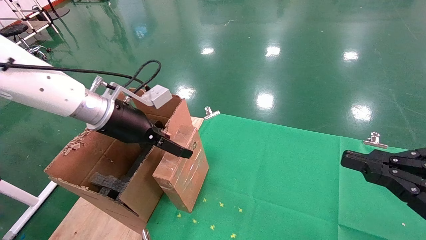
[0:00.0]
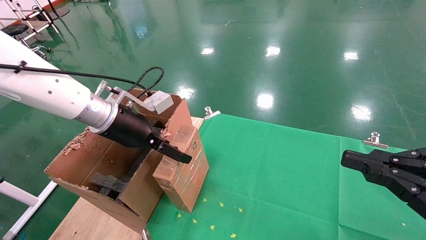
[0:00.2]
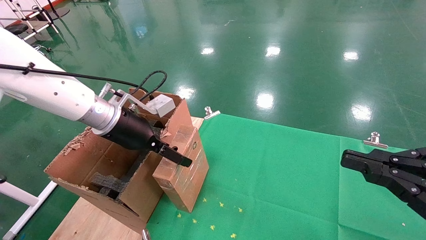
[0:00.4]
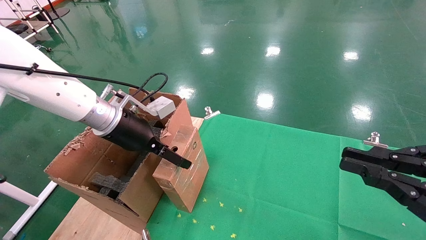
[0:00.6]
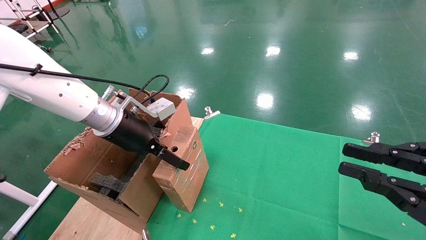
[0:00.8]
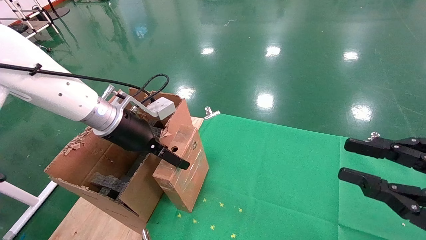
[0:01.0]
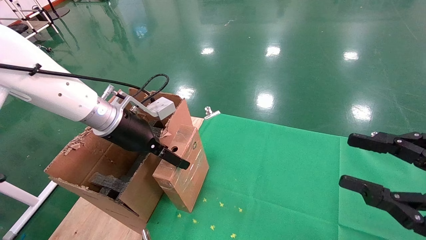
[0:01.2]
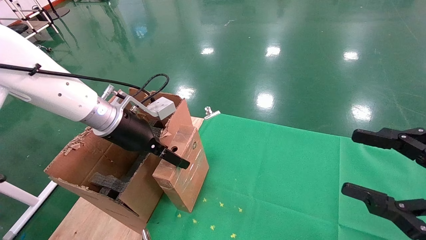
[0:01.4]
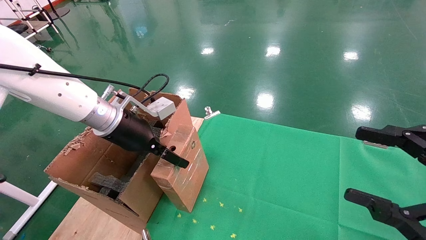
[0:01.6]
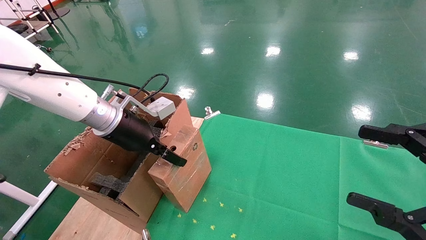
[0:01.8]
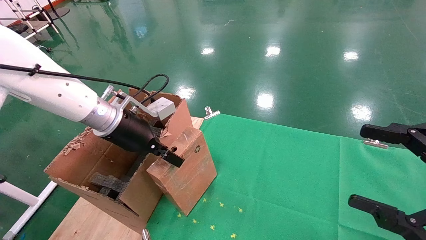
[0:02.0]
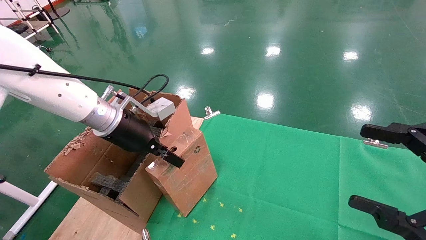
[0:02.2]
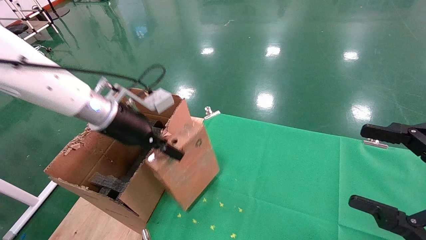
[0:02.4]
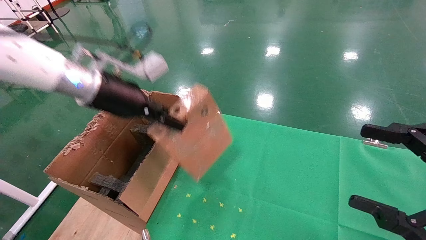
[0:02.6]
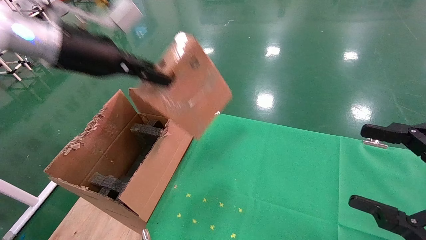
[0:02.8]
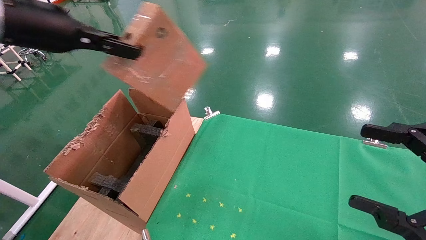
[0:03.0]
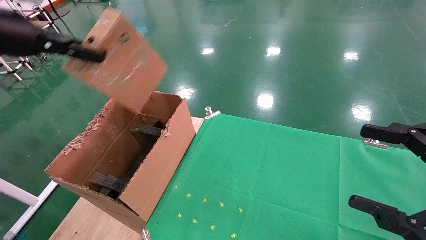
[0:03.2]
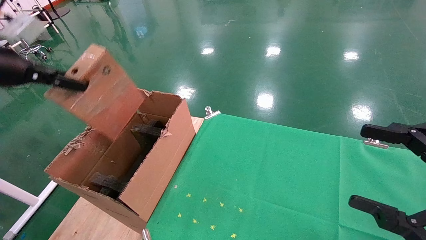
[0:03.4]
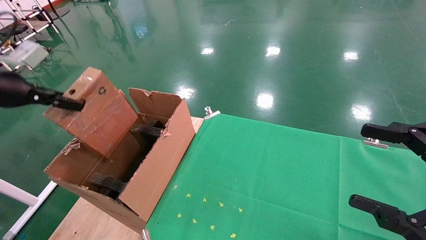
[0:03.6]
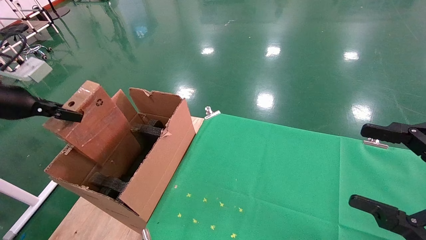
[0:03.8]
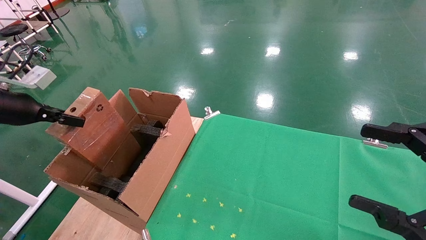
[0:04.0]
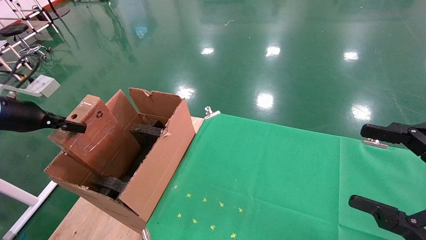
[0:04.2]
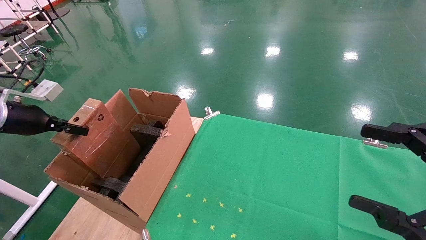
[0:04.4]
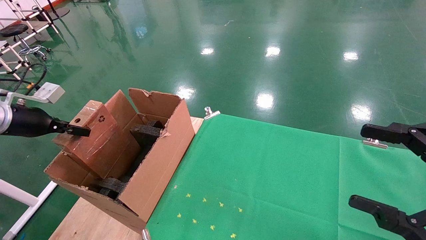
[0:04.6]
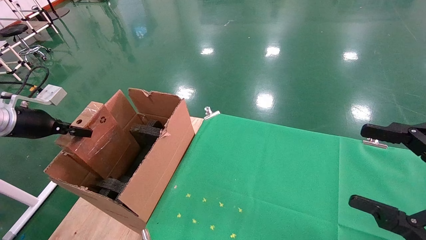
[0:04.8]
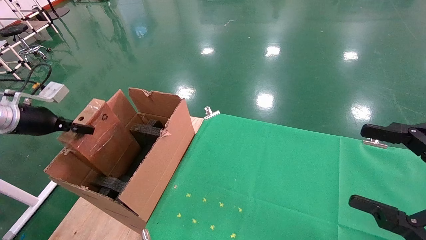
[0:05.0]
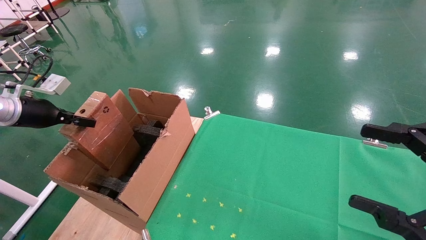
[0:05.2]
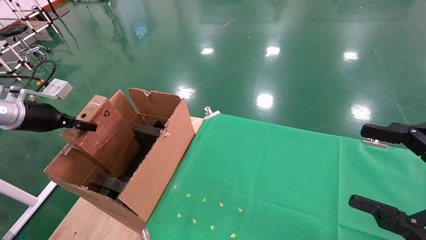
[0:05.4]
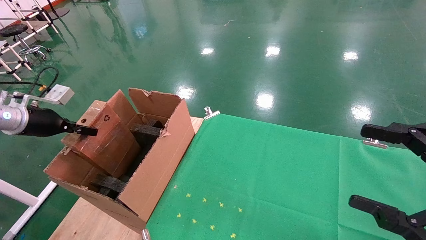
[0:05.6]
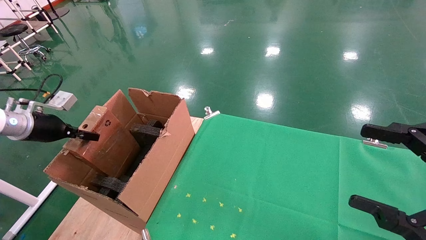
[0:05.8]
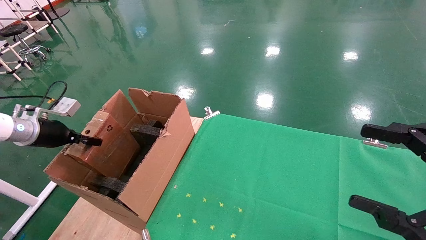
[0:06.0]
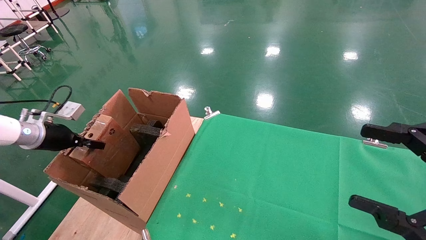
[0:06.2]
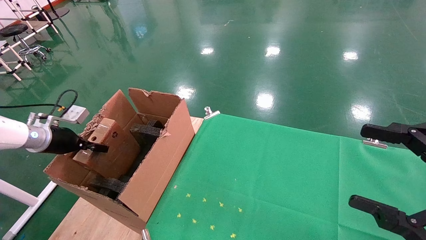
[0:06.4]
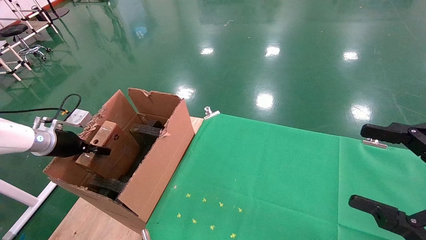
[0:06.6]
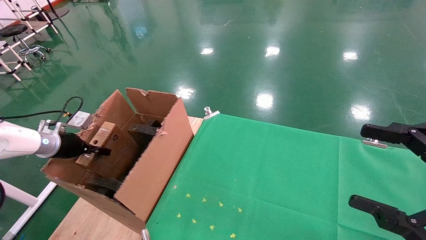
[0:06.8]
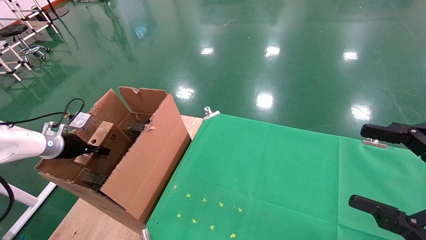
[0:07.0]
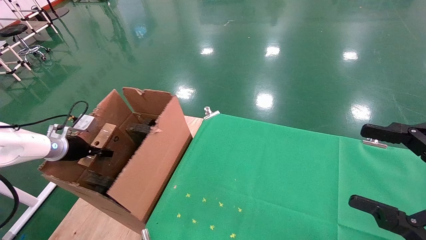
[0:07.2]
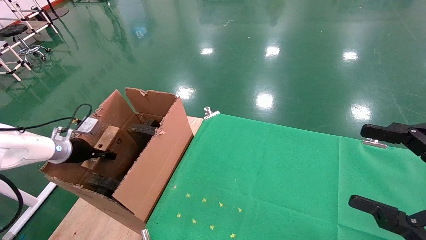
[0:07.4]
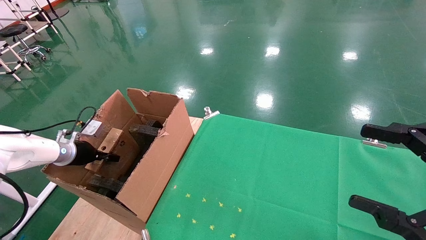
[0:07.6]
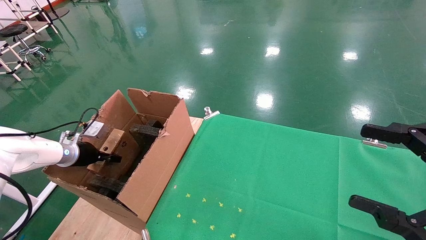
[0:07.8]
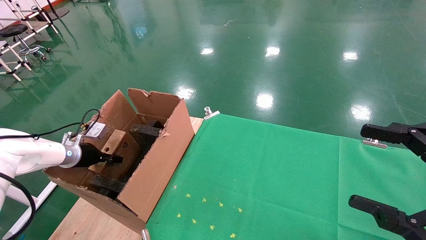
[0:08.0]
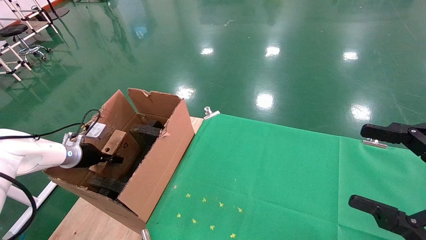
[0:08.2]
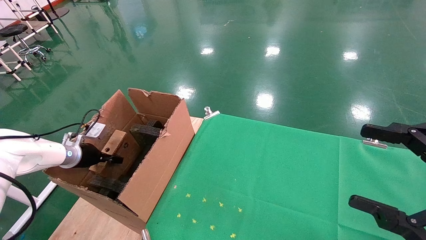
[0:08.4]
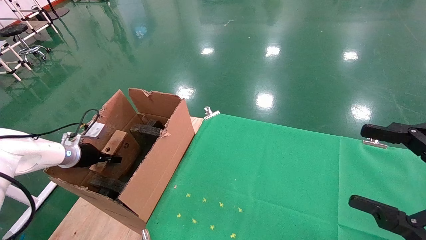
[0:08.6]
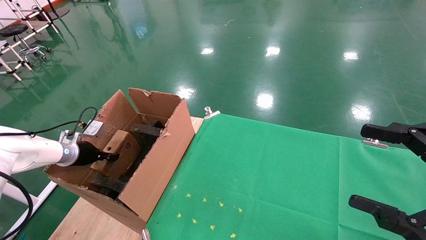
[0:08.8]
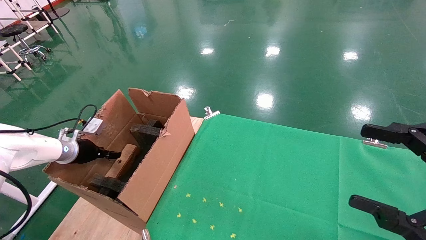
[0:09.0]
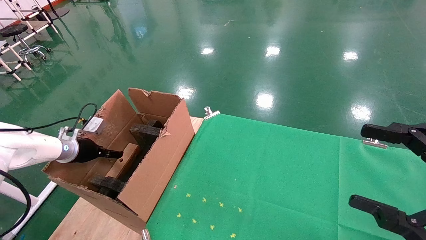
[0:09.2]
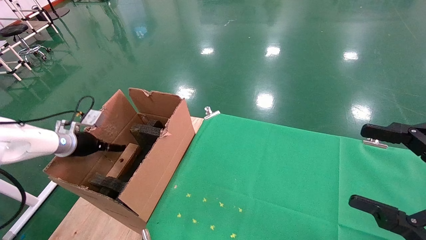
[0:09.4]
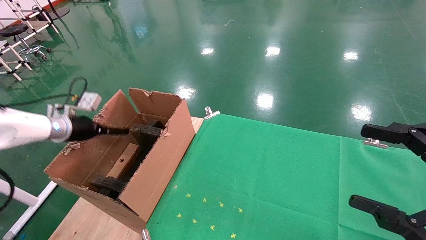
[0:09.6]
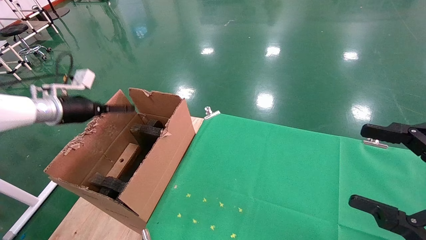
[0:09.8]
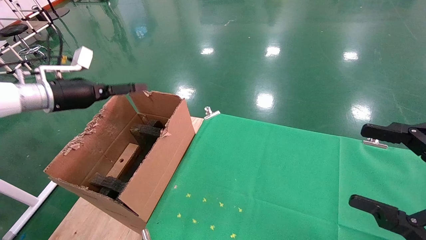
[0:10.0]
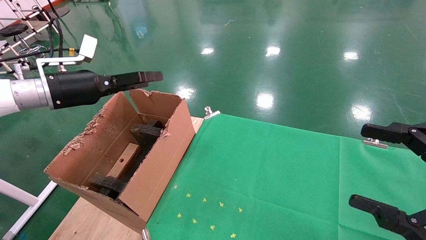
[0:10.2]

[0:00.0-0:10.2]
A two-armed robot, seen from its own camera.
Task of the whole recording: using a robotic arm to pick up a cardboard box and palace it the carton.
Step, 0:00.0 to 0:02.2: Pick up the mouse and the power cord paper box.
Step, 0:02.4 to 0:09.8: Place the mouse and the power cord paper box into the container.
0:00.0 to 0:01.4: The right gripper opens.
0:01.4 to 0:03.0: The right gripper opens up, while the left gripper shifts approximately 20 cm upward, to the left and backward, and closes.
0:03.0 to 0:04.4: The left gripper goes roughly 25 cm to the left and downward.
0:04.4 to 0:05.8: The left gripper shifts by roughly 5 cm.
0:05.8 to 0:07.2: The left gripper shifts roughly 10 cm downward.
0:07.2 to 0:08.8: The grippers stay close to where they were, moving slightly.
0:08.8 to 0:10.2: The left gripper goes about 20 cm upward and to the right, and opens up.

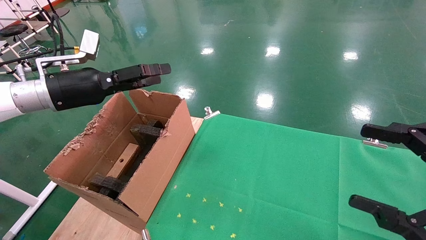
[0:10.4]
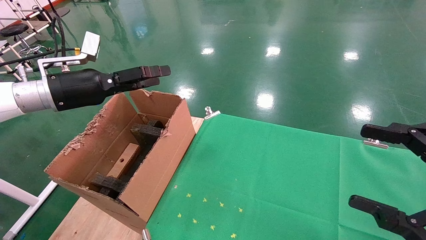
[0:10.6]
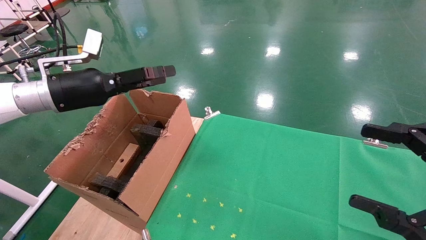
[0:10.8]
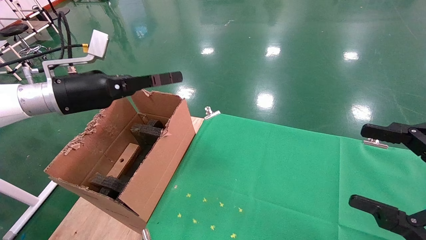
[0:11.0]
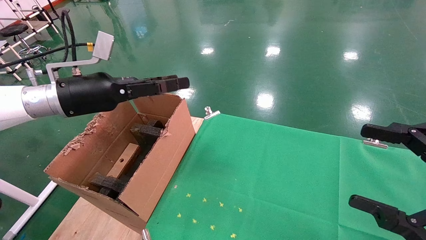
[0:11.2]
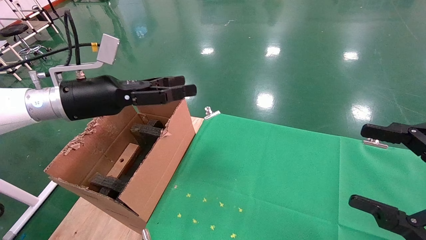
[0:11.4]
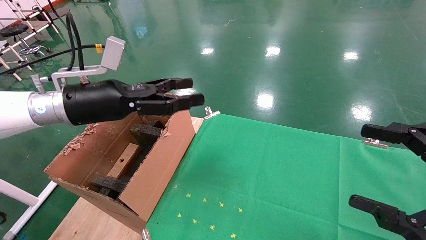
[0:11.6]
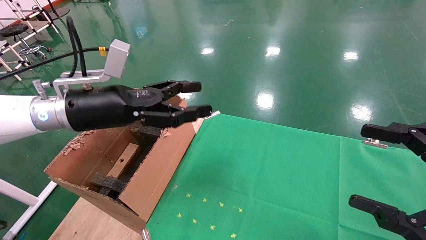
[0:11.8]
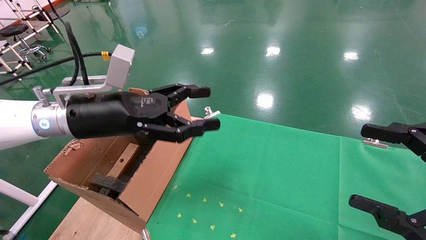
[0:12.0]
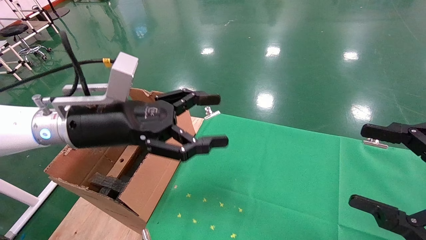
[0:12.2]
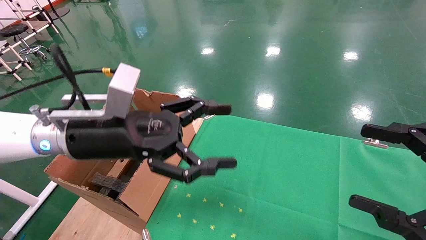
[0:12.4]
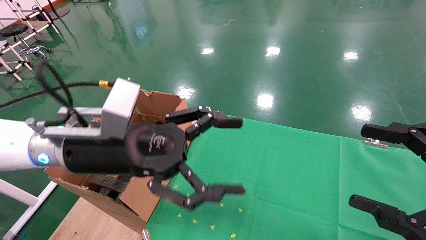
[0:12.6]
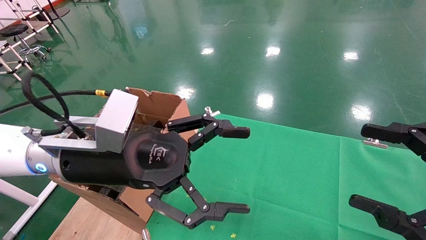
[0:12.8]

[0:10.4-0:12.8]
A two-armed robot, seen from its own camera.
Task of the whole recording: using a robotic arm to pick up a cardboard box and palace it the carton.
0:10.4 to 0:11.6: The left gripper shifts approximately 10 cm to the right.
0:11.6 to 0:12.8: The left gripper shifts roughly 10 cm to the right and backward.
